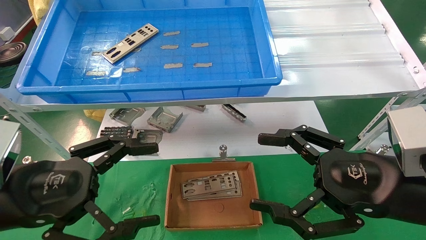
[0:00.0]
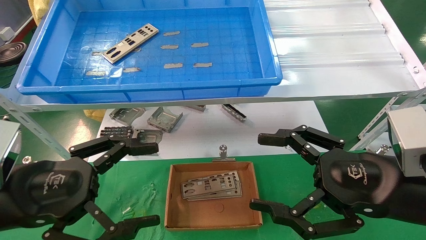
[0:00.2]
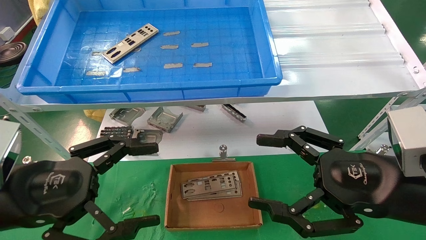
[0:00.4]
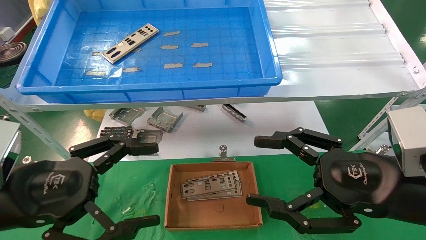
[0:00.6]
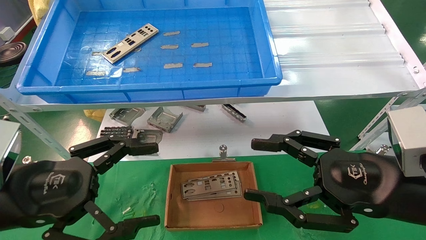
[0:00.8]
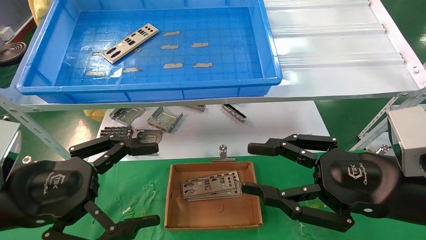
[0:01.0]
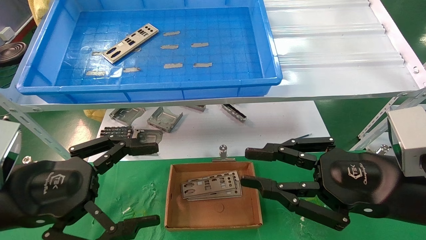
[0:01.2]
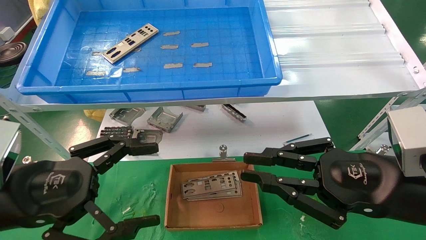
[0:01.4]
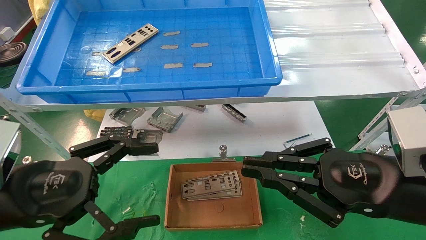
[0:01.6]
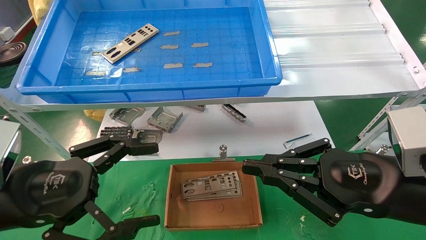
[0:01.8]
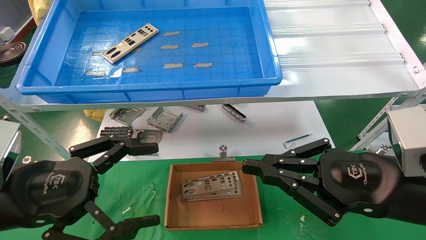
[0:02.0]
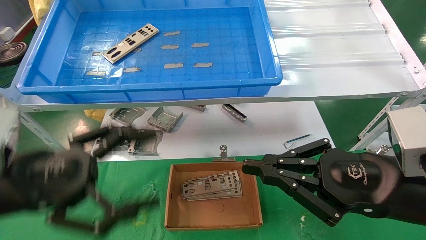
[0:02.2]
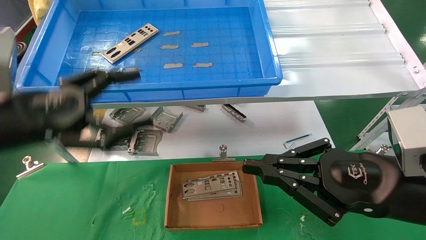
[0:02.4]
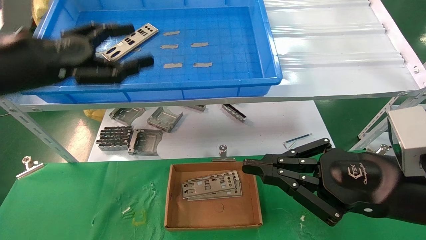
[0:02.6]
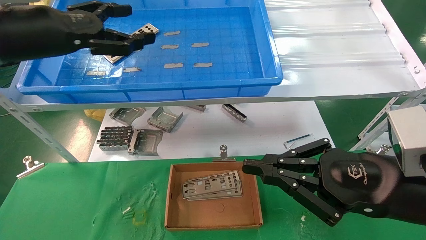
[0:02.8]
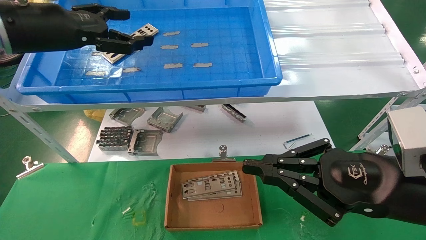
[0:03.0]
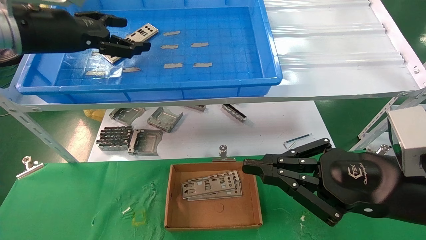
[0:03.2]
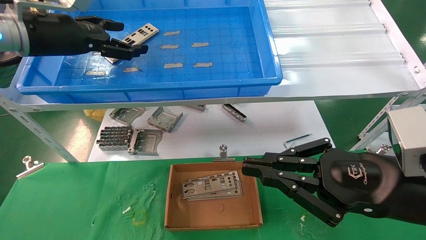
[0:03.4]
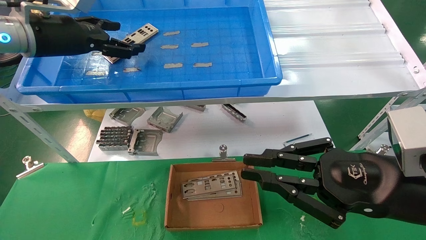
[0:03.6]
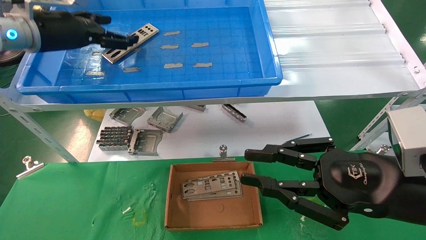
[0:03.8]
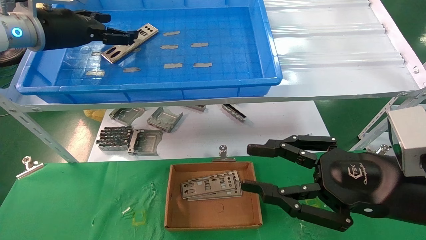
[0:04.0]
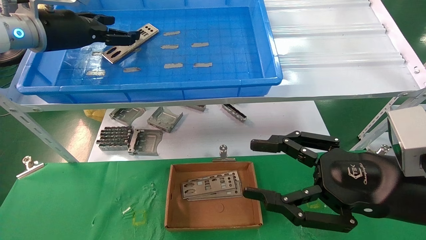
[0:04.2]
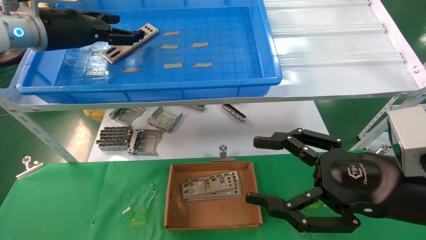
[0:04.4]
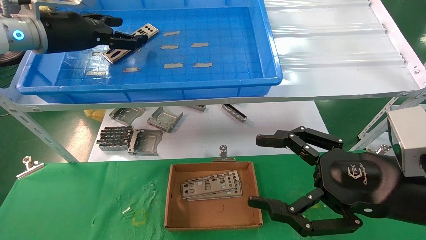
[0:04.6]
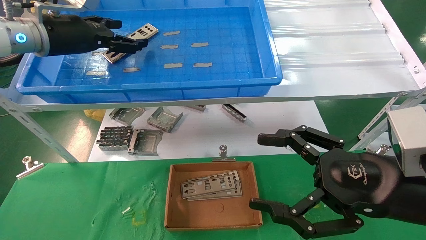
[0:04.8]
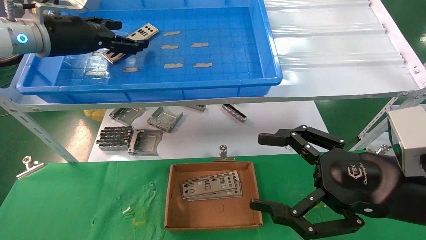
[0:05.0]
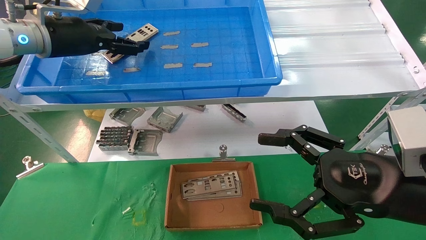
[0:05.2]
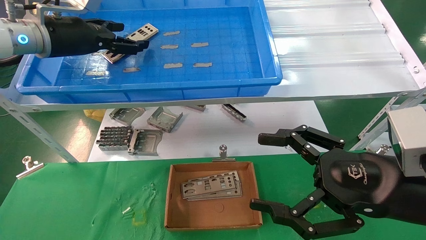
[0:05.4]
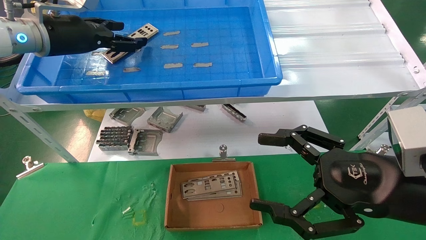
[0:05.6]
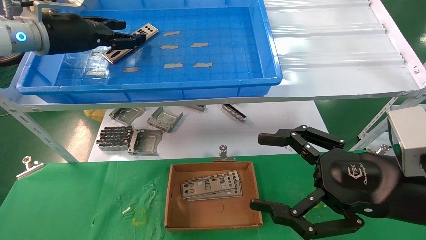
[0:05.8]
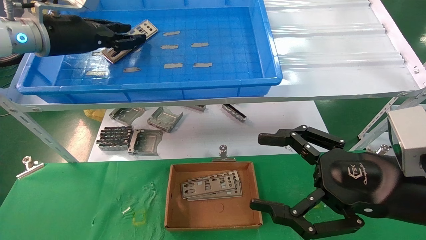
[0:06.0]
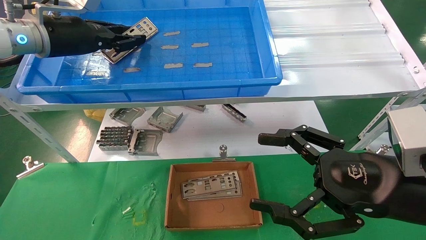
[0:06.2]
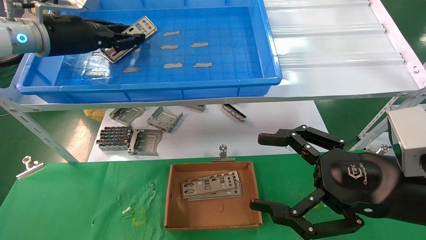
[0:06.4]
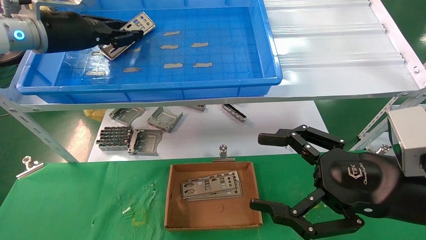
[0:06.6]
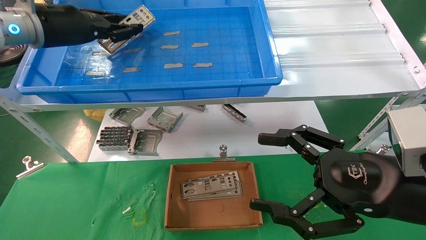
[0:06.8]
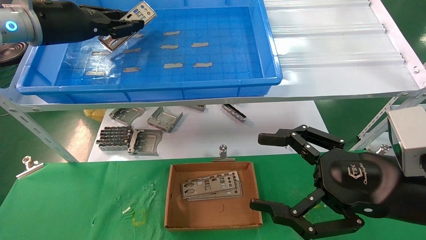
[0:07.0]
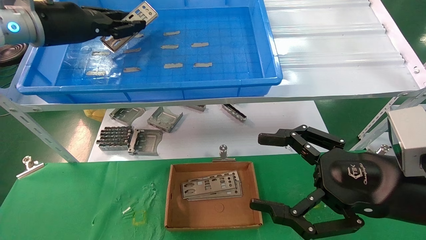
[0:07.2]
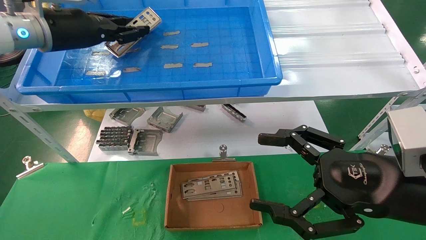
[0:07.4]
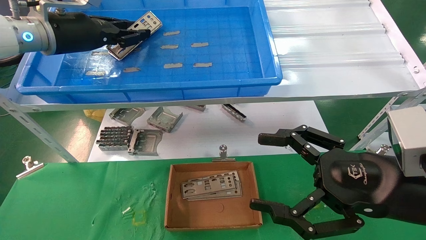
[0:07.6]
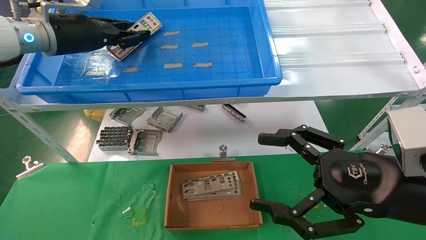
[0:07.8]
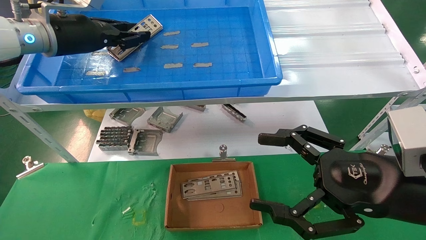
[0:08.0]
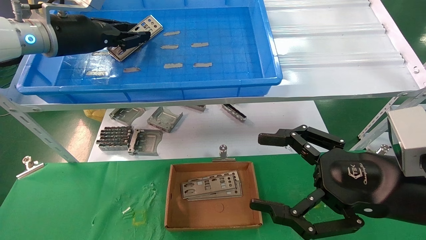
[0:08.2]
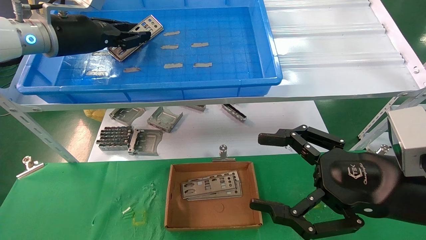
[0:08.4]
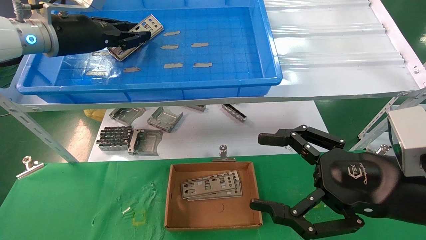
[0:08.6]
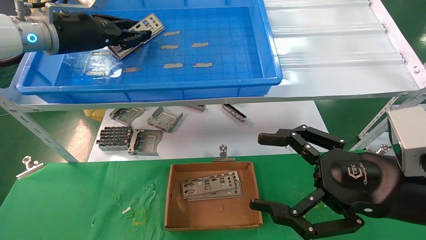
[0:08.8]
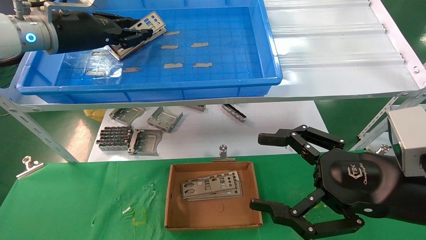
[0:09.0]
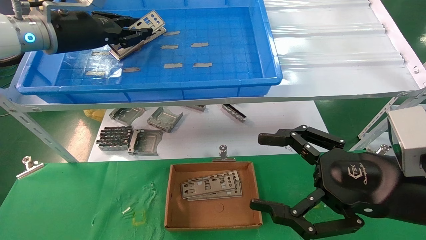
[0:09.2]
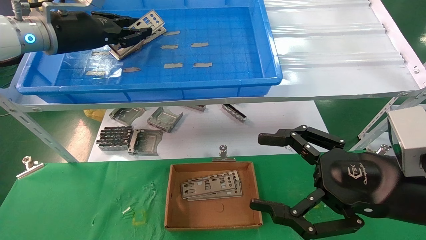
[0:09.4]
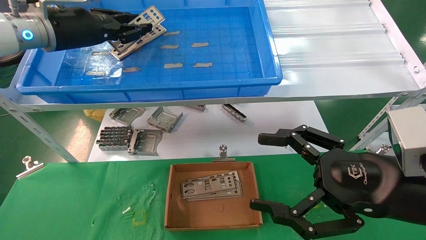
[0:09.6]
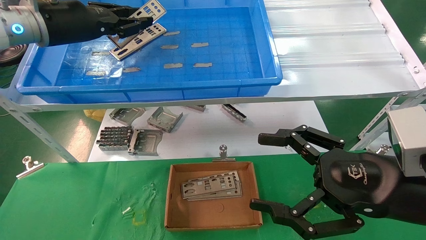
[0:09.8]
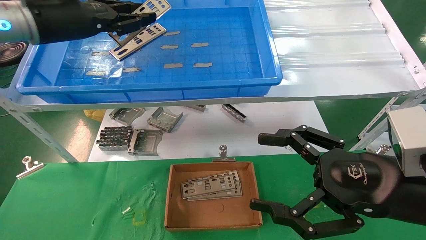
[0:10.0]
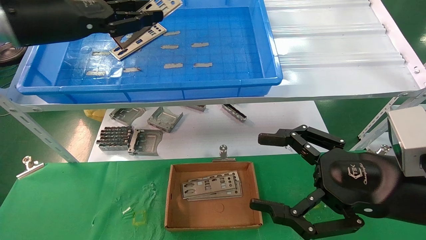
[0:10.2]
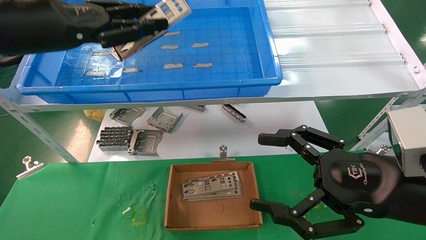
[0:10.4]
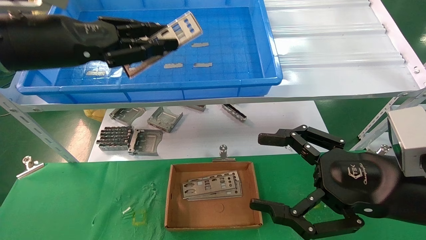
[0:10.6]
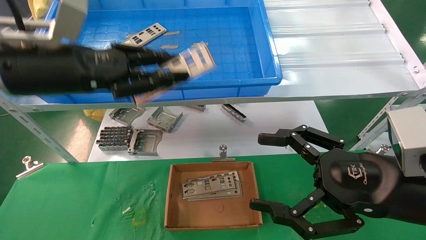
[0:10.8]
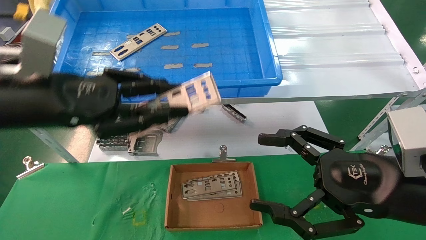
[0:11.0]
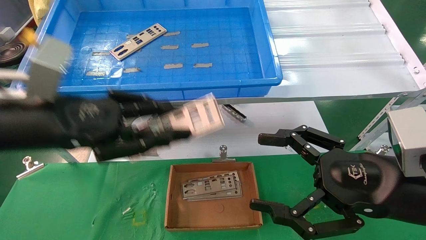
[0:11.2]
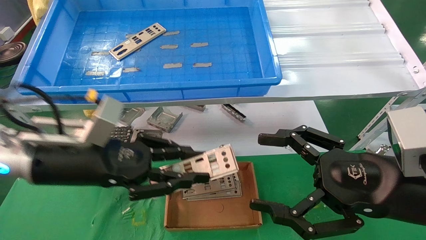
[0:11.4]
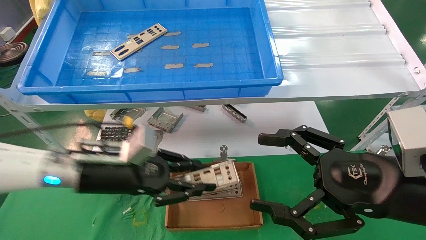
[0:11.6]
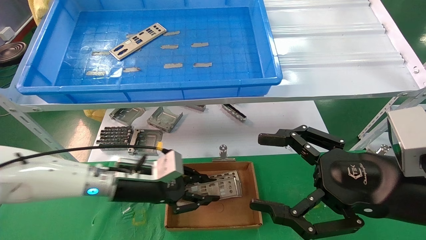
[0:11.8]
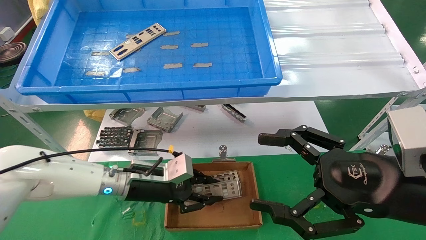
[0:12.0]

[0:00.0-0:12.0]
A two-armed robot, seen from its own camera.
Task of the whole recording: pick up the parts on the tray and put them in the cardboard box.
Step, 0:02.4 to 0:09.2: Pick up the IO bracket from the container box.
0:00.0 to 0:01.6: The right gripper closes.
0:01.6 to 0:03.0: The left gripper travels upward and forward by approximately 25 cm.
0:03.0 to 0:04.4: The left gripper heads forward, covering roughly 5 cm, while the right gripper opens up.
0:04.4 to 0:06.0: The left gripper closes up.
0:06.0 to 0:07.6: The left gripper closes up.
0:07.6 to 0:09.0: There are only small adjustments of the grippers.
0:09.0 to 0:10.4: The left gripper moves backward, roughly 10 cm.
0:10.4 to 0:12.0: The left gripper goes approximately 30 cm downward.

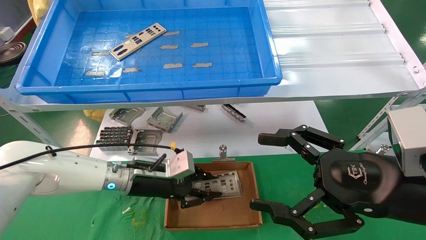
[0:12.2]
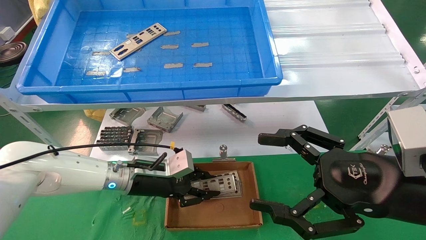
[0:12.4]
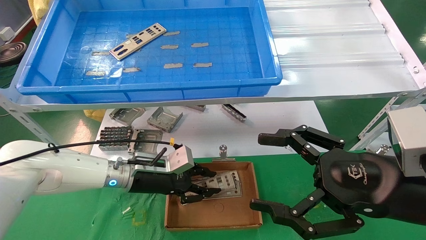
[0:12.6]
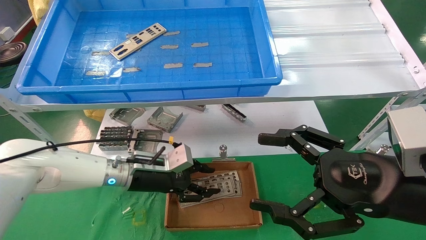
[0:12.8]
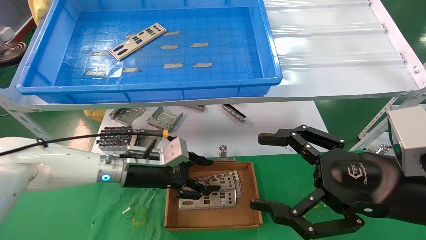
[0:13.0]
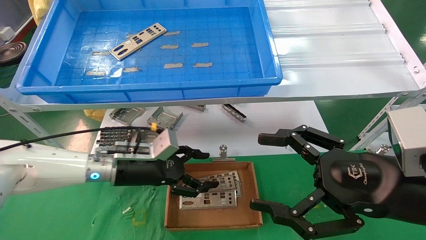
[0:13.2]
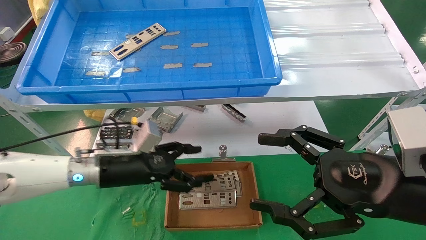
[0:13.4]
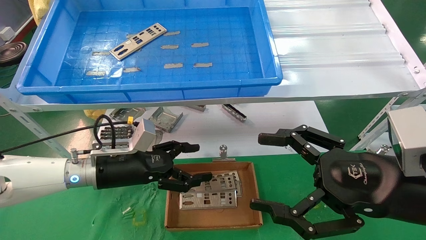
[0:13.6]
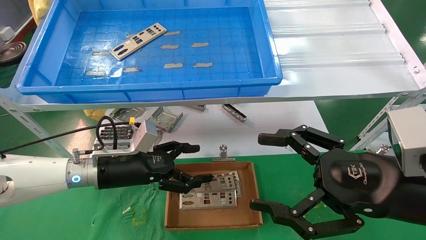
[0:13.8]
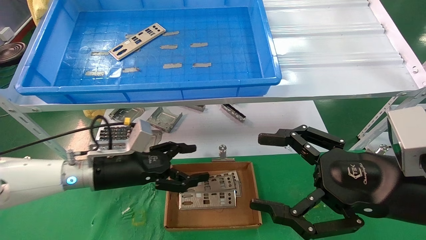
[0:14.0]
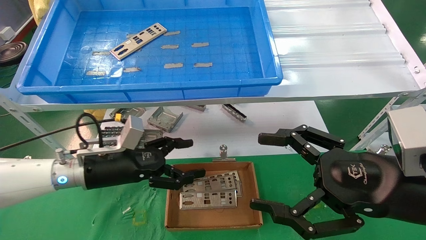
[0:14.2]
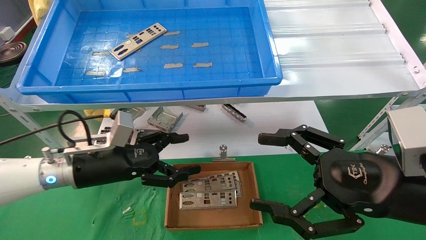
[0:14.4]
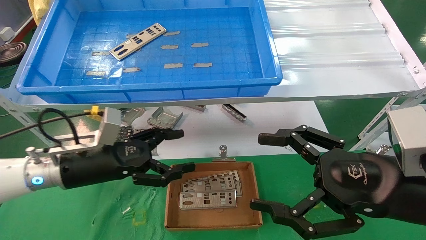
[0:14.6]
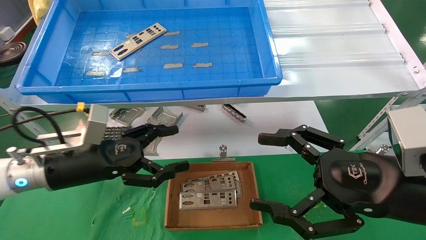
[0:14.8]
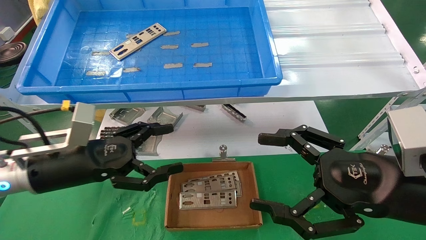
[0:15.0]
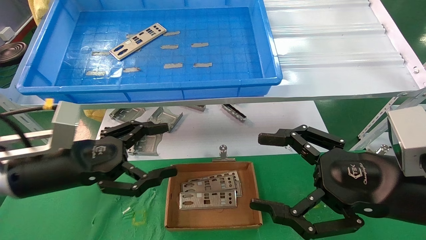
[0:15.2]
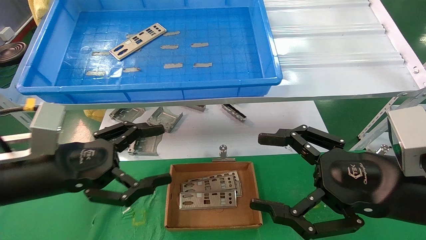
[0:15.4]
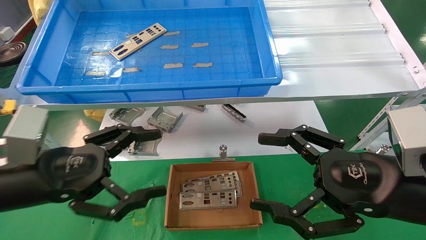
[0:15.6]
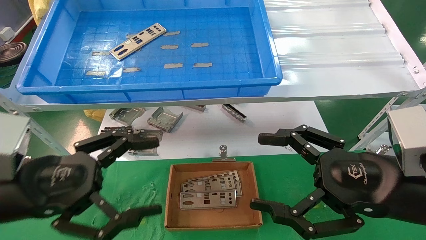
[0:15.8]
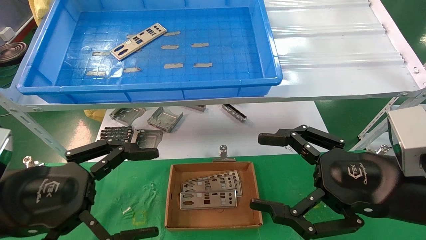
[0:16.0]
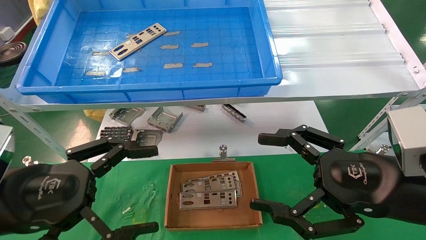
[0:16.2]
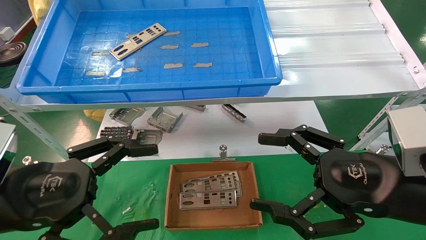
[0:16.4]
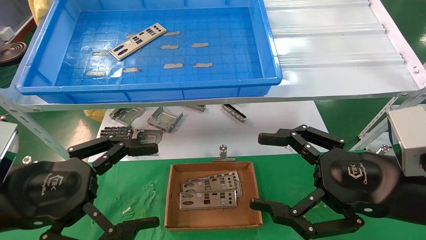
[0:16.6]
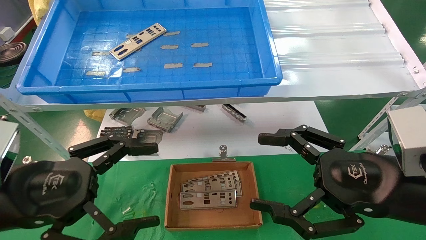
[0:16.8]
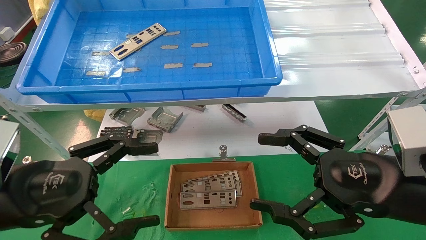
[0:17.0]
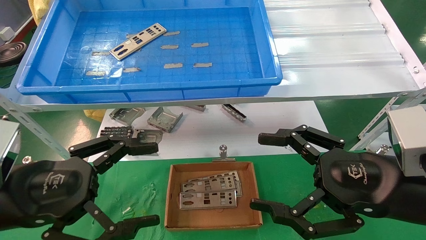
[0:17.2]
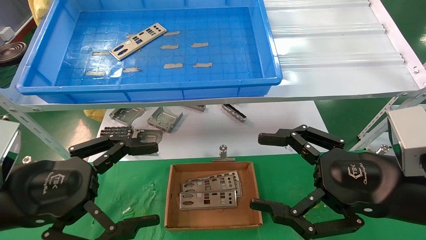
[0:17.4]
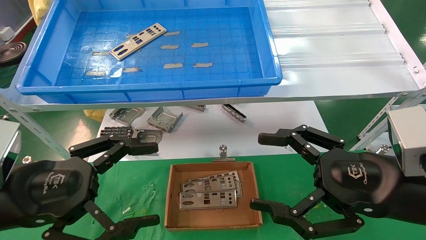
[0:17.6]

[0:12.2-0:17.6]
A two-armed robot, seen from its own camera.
Task of the whole recording: pick up the parts on the tray and put them in the cardboard box.
0:12.2 to 0:13.6: The left gripper ends up about 5 cm from where it was, and opens its fingers.
0:13.6 to 0:15.0: The left gripper goes approximately 10 cm backward and to the left.
0:15.0 to 0:16.2: The left gripper shifts roughly 10 cm backward.
0:16.2 to 0:17.6: Neither gripper changes place.
